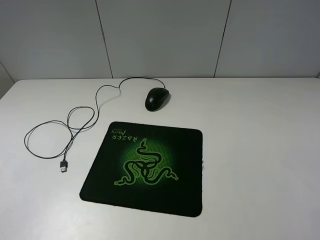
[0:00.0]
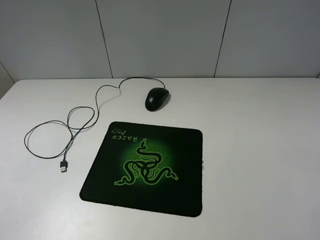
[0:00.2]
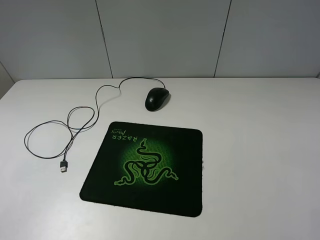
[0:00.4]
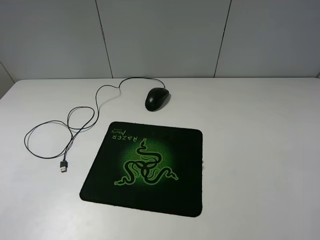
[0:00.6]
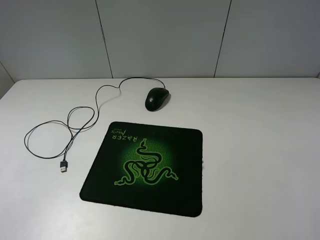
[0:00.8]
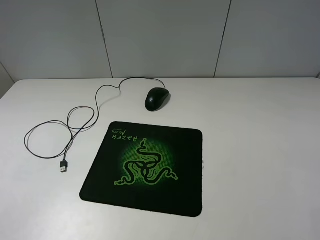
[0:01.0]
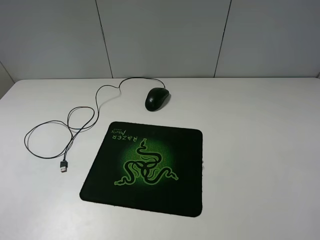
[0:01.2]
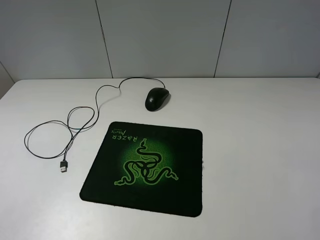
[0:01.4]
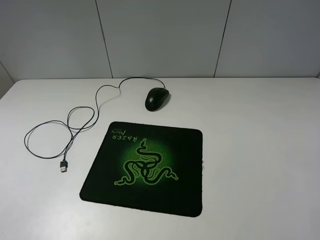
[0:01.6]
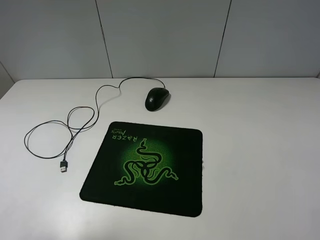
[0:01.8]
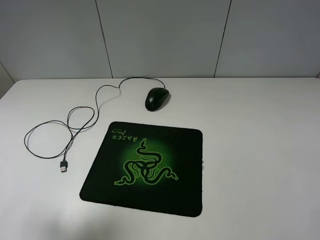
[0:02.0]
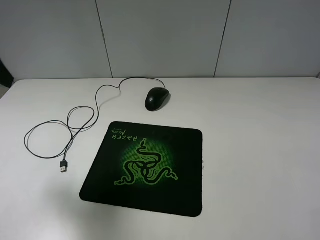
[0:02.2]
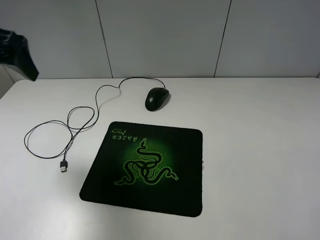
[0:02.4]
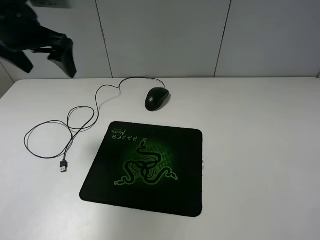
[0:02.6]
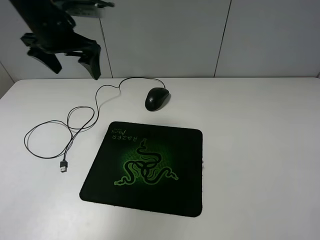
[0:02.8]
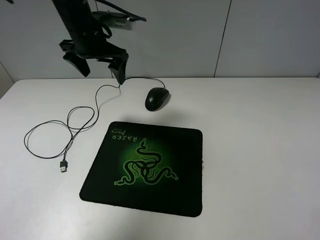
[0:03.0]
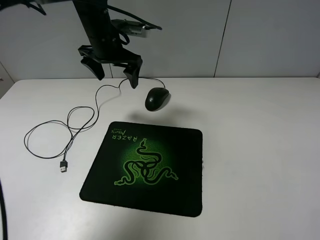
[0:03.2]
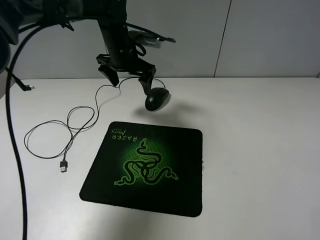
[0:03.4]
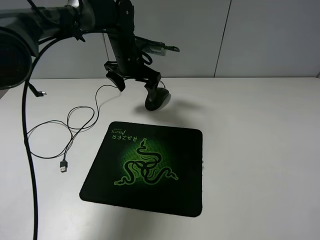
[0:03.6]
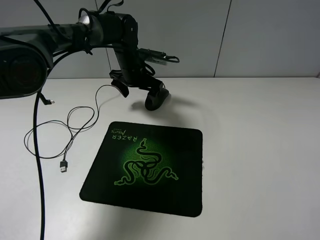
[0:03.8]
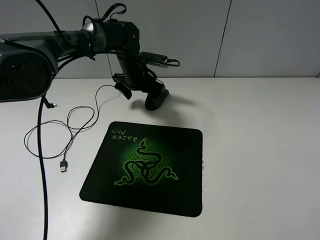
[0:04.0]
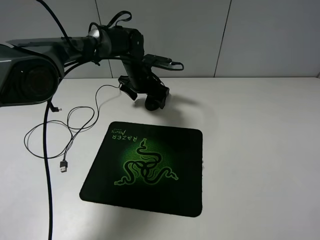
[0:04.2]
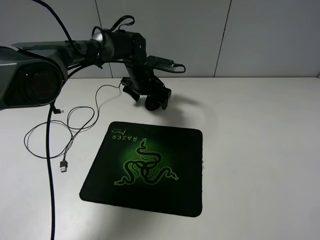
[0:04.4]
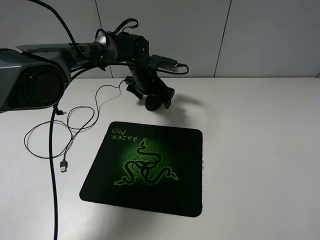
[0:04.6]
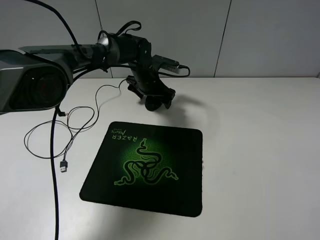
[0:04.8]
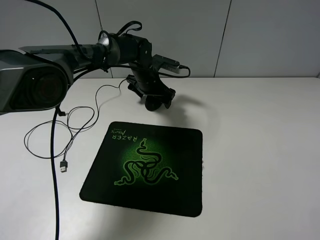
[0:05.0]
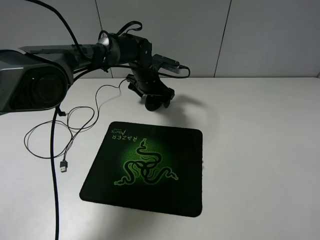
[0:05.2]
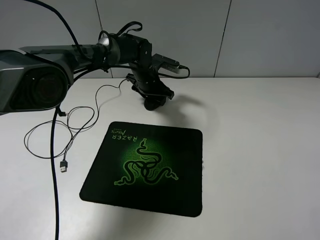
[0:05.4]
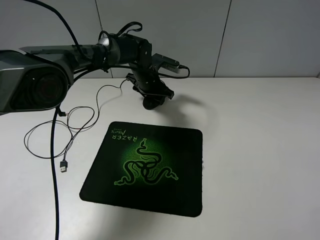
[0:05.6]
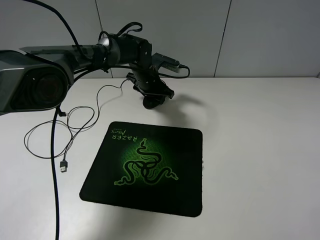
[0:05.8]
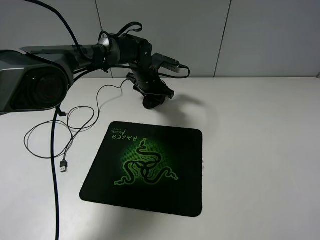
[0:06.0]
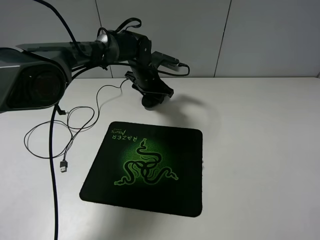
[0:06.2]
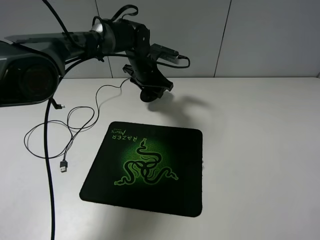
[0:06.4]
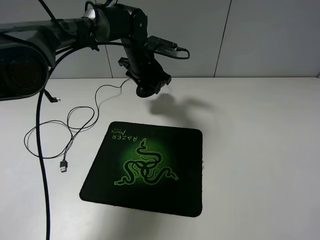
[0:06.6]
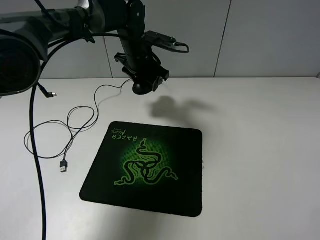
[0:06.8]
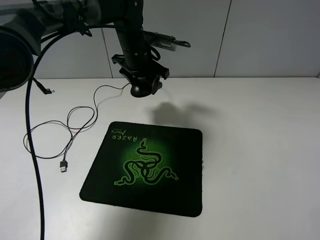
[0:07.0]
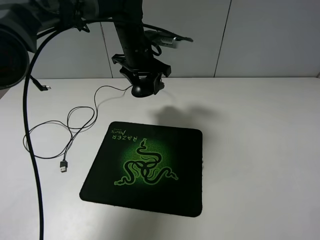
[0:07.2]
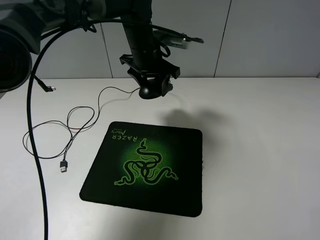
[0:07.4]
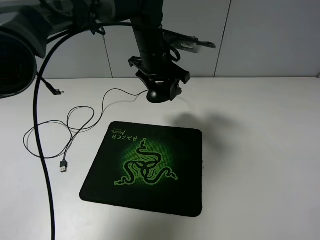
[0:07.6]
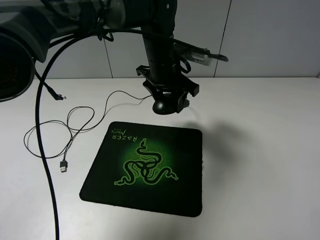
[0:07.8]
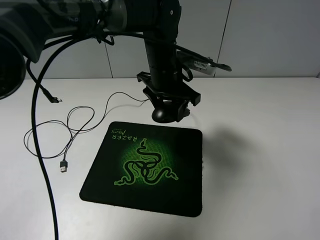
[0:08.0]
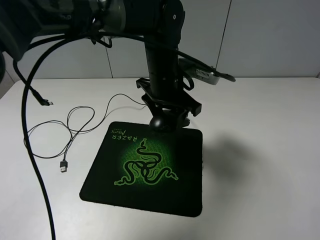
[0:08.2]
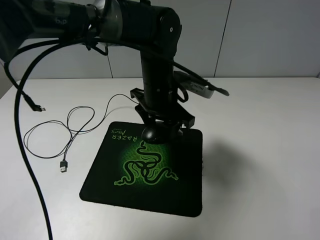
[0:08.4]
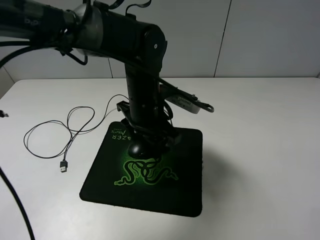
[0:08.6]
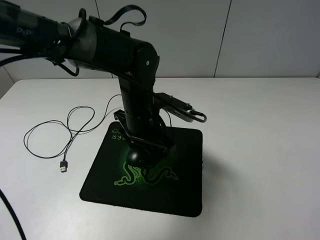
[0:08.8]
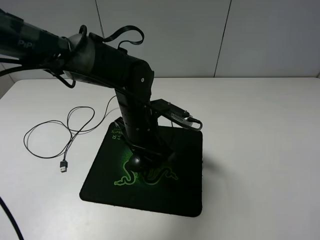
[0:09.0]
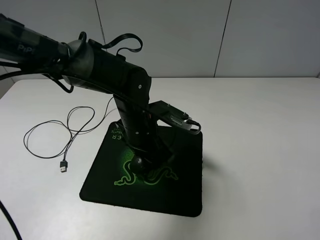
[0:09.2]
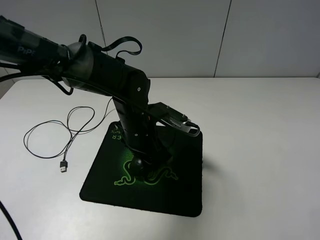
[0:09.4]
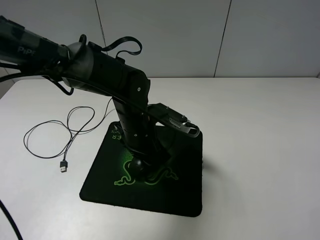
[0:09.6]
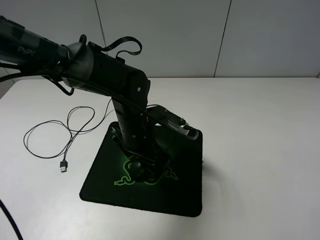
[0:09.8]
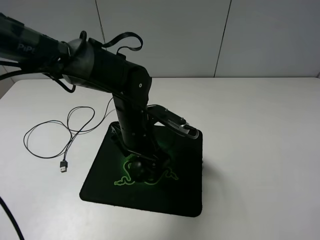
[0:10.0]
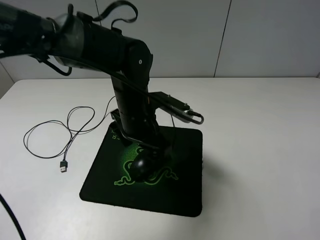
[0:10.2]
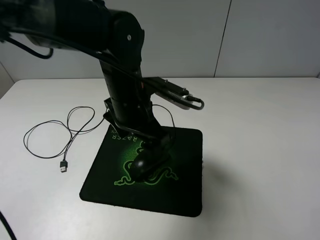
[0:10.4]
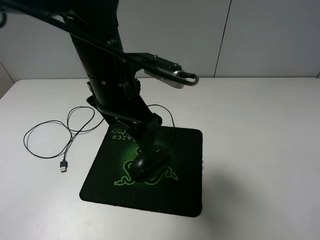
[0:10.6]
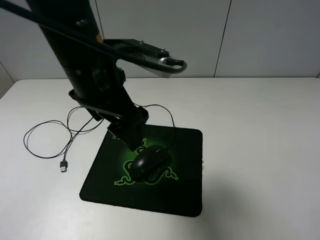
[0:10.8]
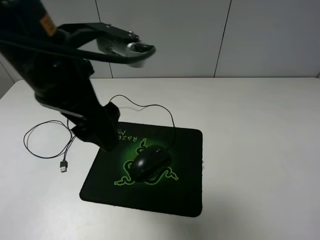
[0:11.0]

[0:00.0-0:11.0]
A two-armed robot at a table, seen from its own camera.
Step, 0:00.0 to 0:06.0: Grasp the mouse with the left gripper.
Step, 0:06.2 to 0:09.6: Place the mouse on the mouse mat with the left gripper.
0:01.6 to 0:03.2: The left gripper travels forward and to the right by about 40 cm.
0:03.2 to 0:04.8: The left gripper goes roughly 15 cm downward and to the right.
0:04.8 to 0:06.2: The left gripper closes up.
0:06.2 to 0:07.8: The left gripper travels backward, upward and to the right by roughly 15 cm.
0:07.8 to 0:09.4: The left gripper shifts roughly 15 cm backward and downward.
0:09.4 to 0:11.0: The left gripper is displaced upward, to the left and backward by approximately 25 cm, and opens.

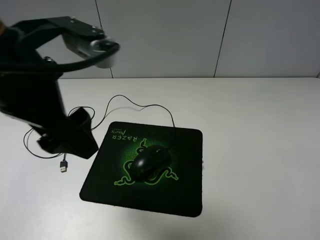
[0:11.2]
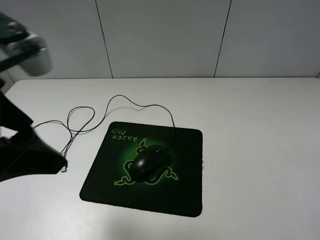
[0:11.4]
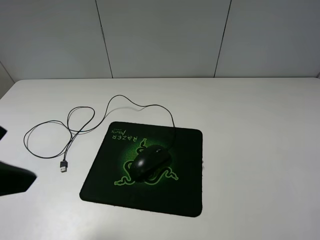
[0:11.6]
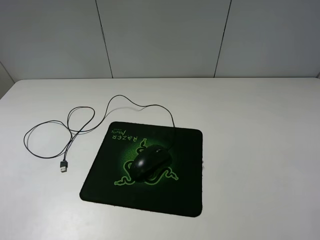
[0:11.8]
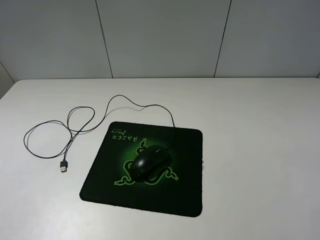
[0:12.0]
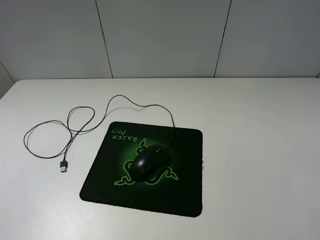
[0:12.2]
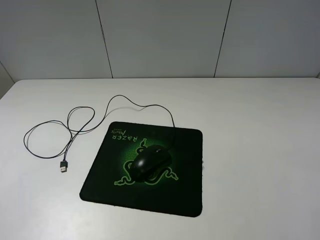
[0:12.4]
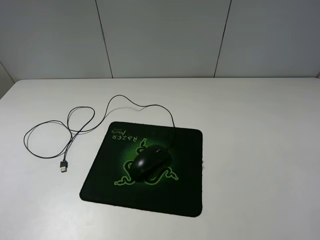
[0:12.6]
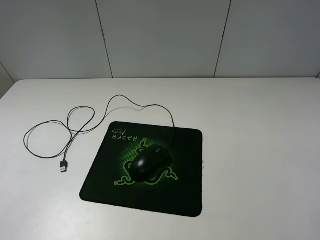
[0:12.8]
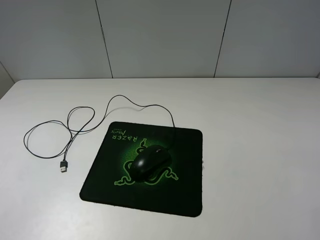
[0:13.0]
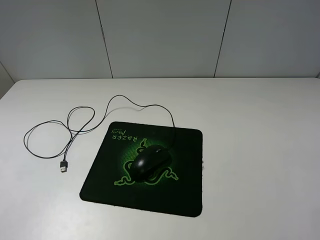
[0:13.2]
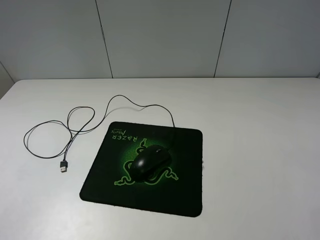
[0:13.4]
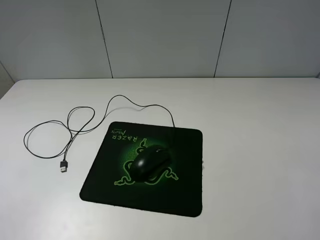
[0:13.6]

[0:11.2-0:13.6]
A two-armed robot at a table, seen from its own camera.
0:11.2 to 0:12.4: The left gripper is displaced to the left and backward by some 20 cm.

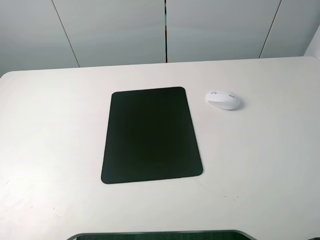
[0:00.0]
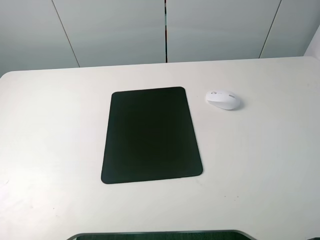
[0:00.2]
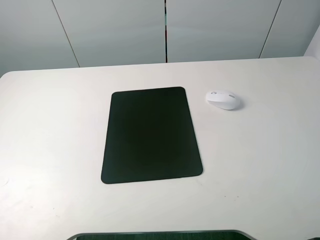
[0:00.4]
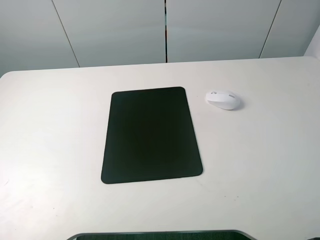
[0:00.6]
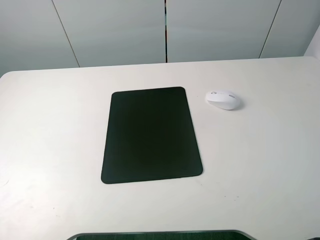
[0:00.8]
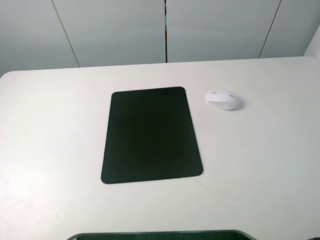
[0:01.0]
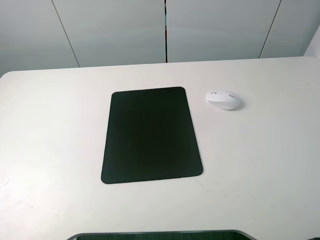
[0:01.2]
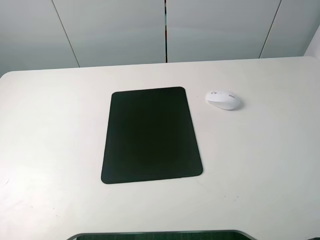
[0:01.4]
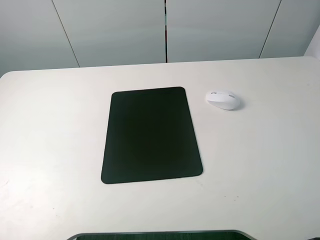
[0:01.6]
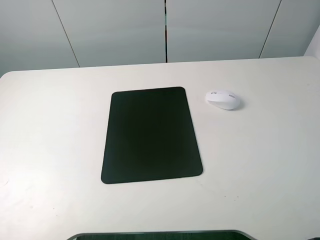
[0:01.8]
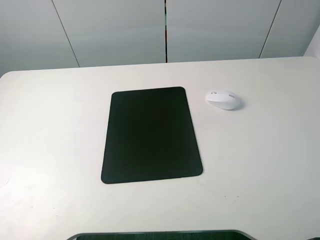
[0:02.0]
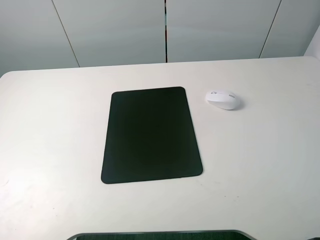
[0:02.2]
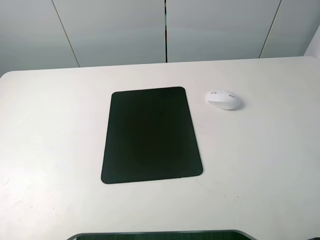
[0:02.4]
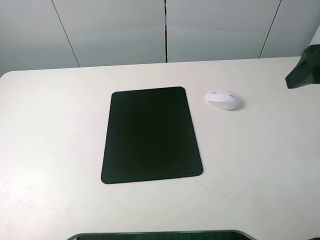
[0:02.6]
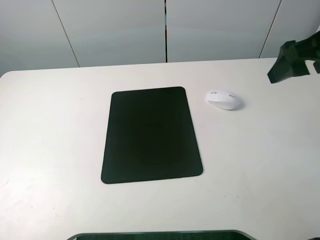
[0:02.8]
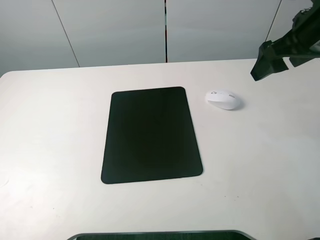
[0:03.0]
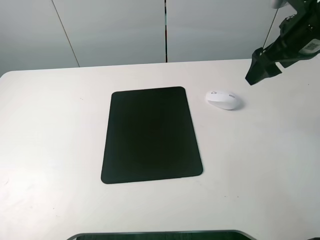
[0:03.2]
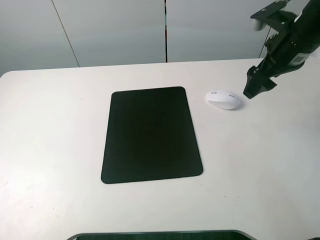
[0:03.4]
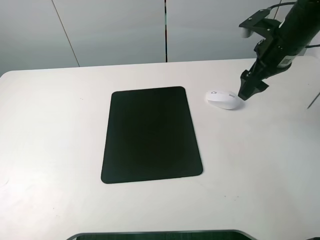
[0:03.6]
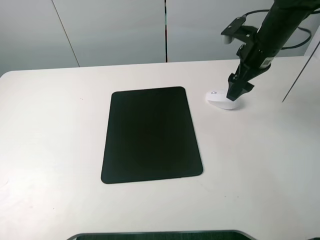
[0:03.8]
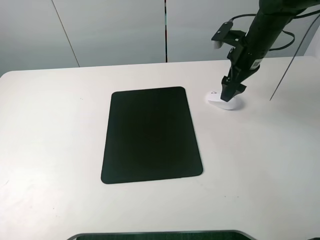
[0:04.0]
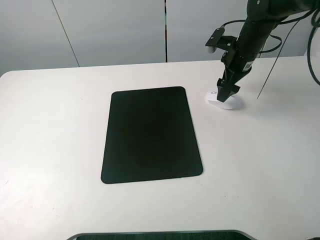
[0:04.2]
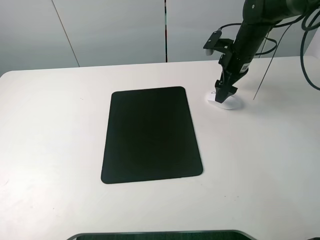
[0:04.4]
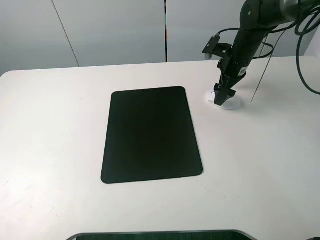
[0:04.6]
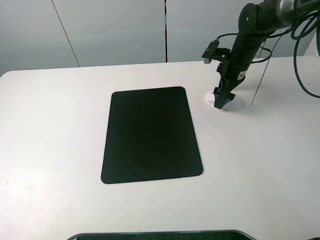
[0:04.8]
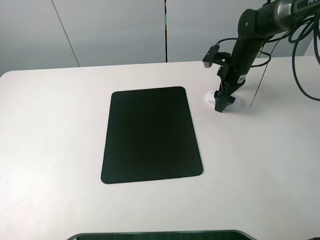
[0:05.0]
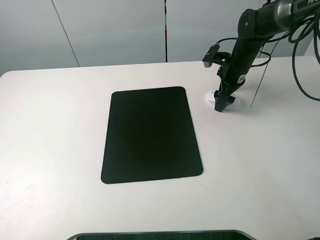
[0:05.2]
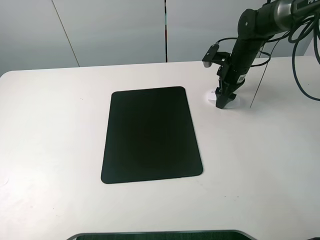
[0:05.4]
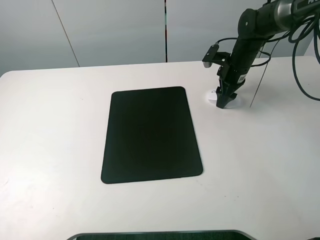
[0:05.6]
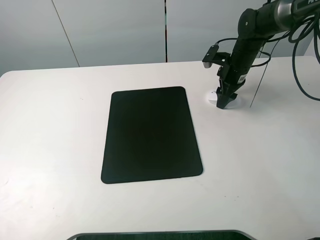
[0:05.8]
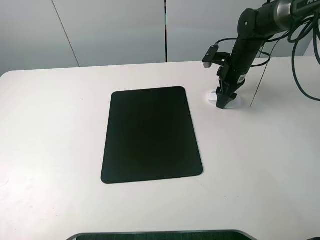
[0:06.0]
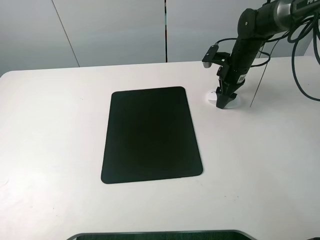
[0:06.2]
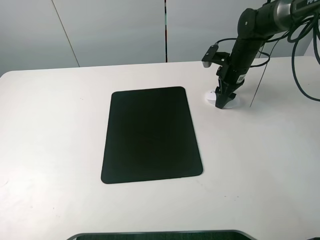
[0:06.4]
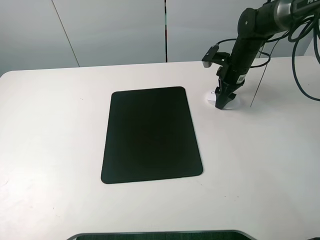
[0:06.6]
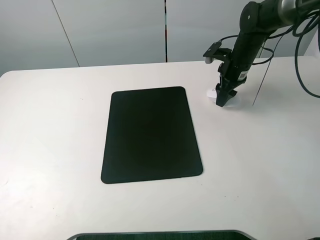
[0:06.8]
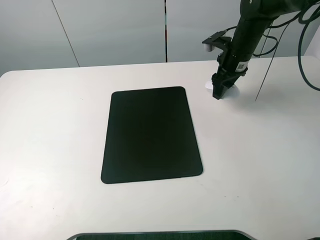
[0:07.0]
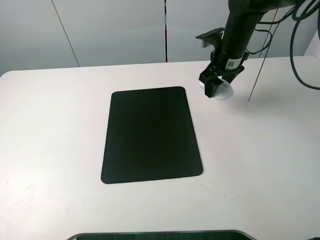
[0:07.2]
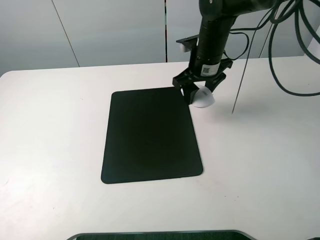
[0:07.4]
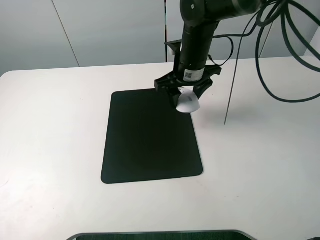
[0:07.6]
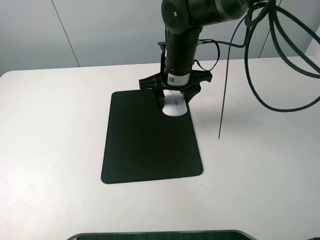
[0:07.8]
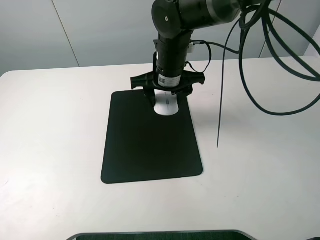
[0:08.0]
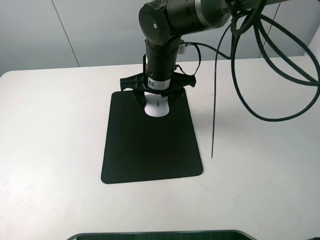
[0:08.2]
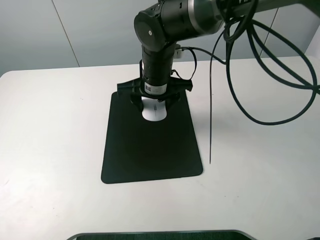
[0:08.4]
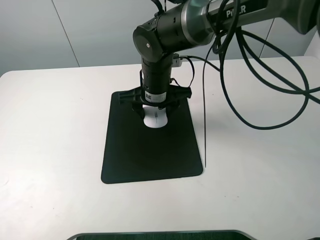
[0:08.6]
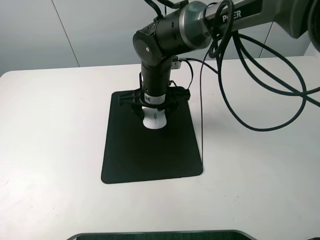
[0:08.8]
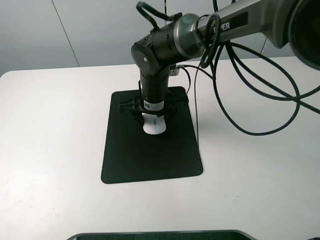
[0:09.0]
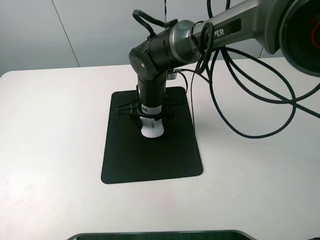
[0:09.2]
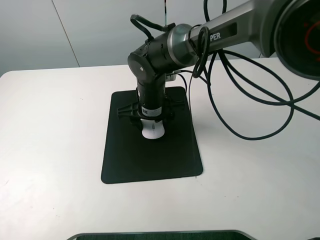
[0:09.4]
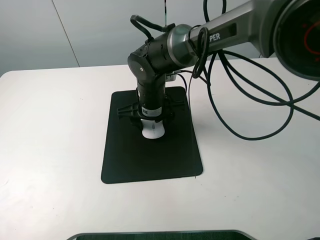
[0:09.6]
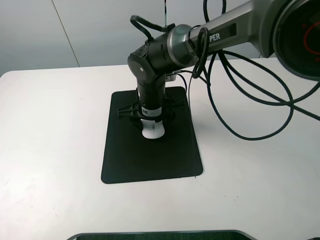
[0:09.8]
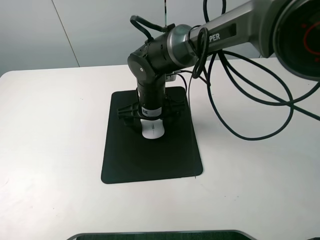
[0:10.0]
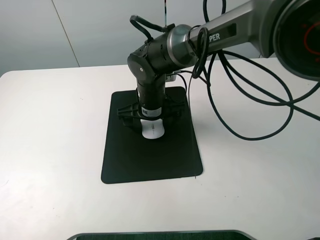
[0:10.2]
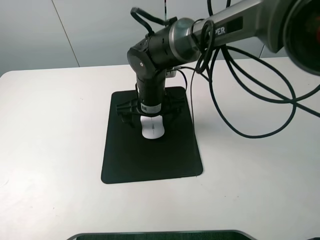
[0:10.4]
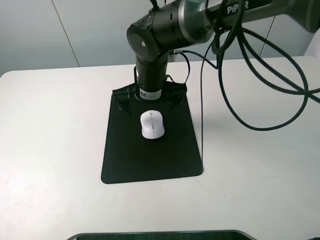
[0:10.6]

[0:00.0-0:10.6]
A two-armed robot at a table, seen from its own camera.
Step, 0:00.0 to 0:06.2: Grasp the mouse with the right gripper.
0:00.0 to 0:01.6: The two grippers keep their place.
0:01.6 to 0:03.0: The right gripper moves forward, roughly 30 cm.
0:03.0 to 0:04.6: The right gripper moves downward and forward, roughly 20 cm.
0:04.6 to 0:06.0: The right gripper closes up.
0:06.0 to 0:07.6: The right gripper is displaced to the left, backward and upward by about 15 cm.
0:07.6 to 0:09.0: The right gripper shifts about 10 cm to the left and downward.
0:09.0 to 0:10.6: The right gripper opens up.
